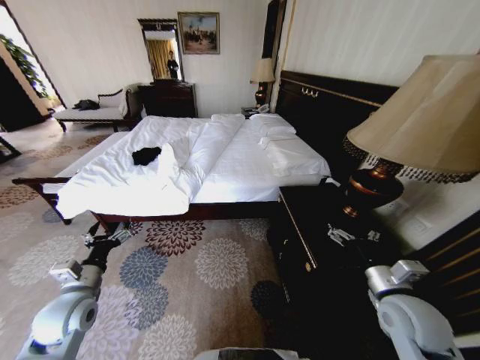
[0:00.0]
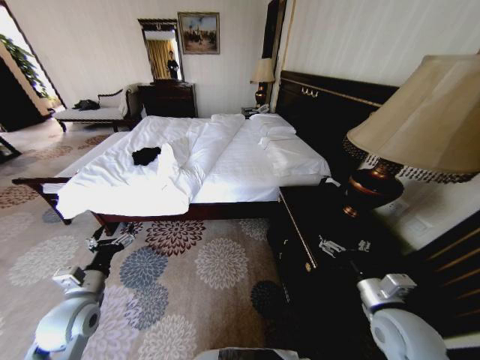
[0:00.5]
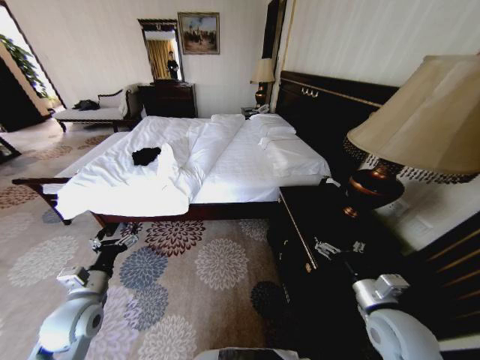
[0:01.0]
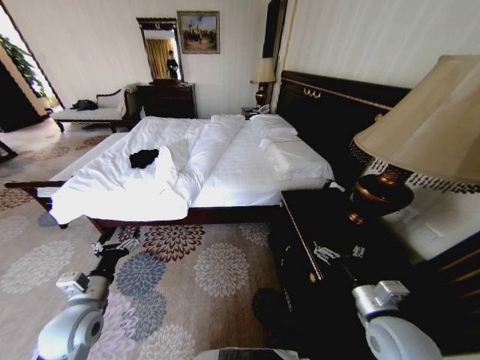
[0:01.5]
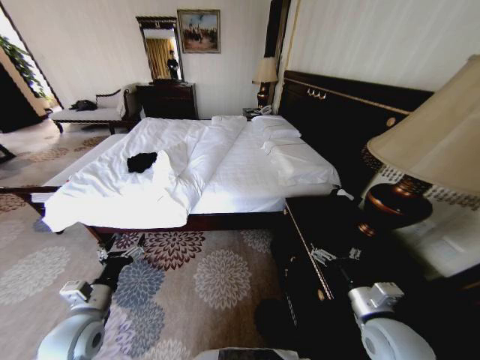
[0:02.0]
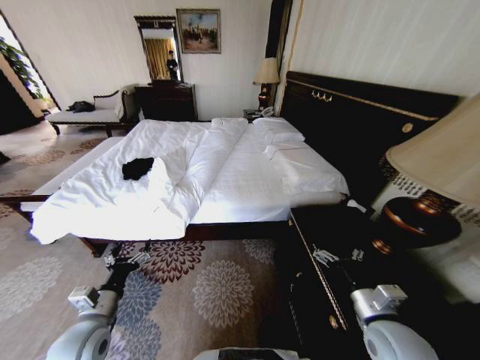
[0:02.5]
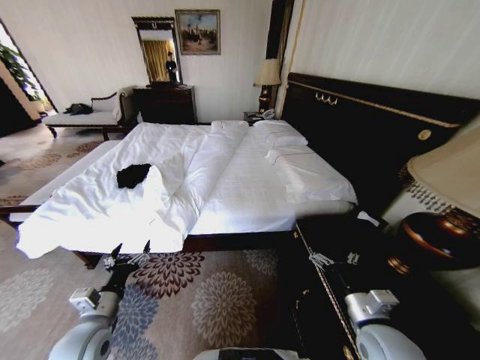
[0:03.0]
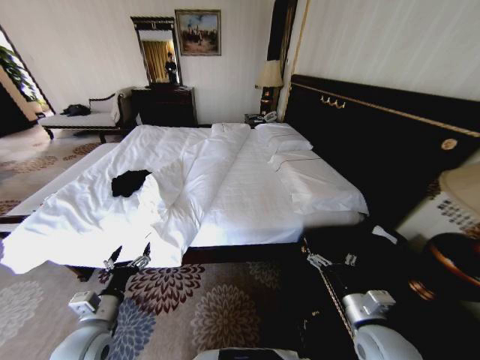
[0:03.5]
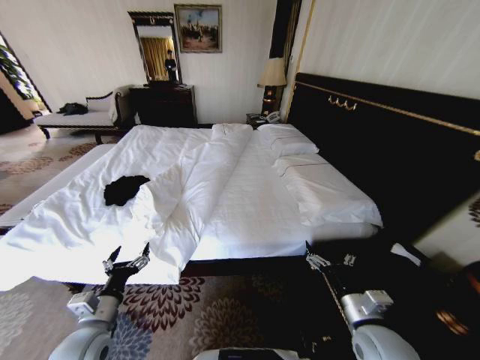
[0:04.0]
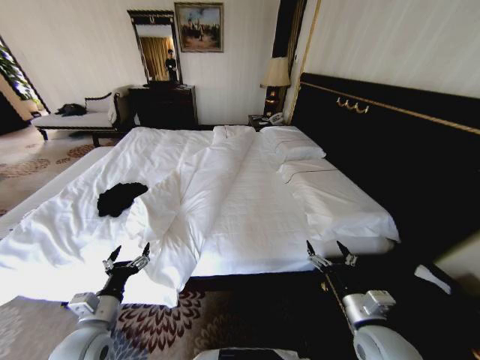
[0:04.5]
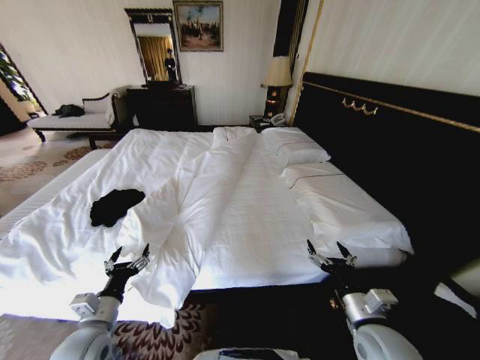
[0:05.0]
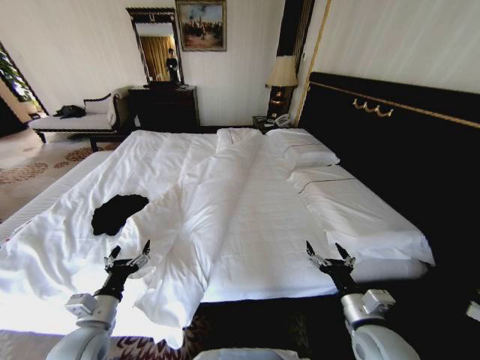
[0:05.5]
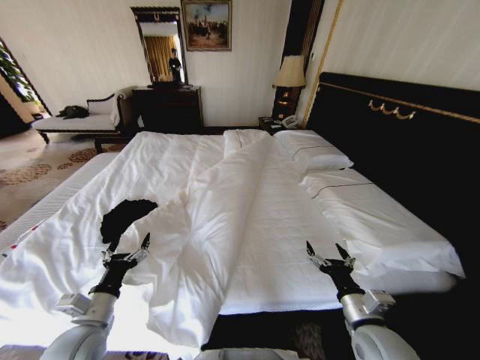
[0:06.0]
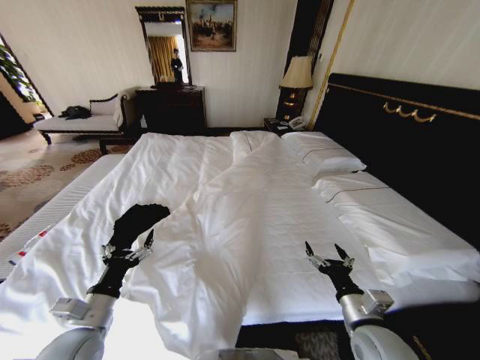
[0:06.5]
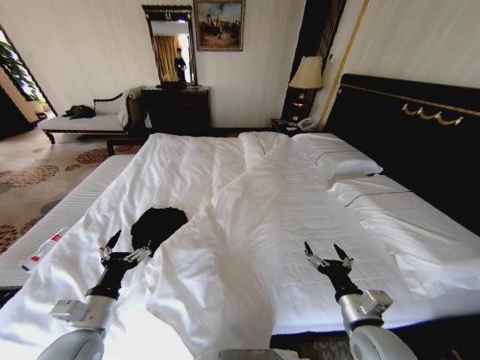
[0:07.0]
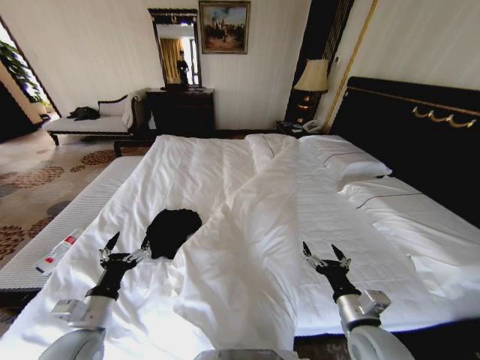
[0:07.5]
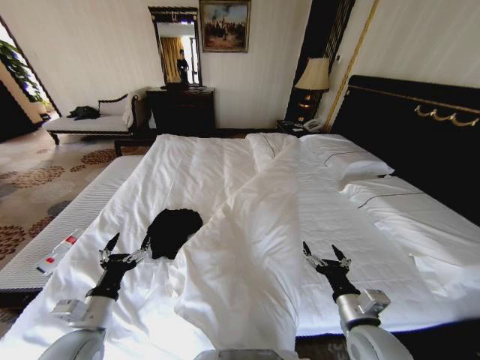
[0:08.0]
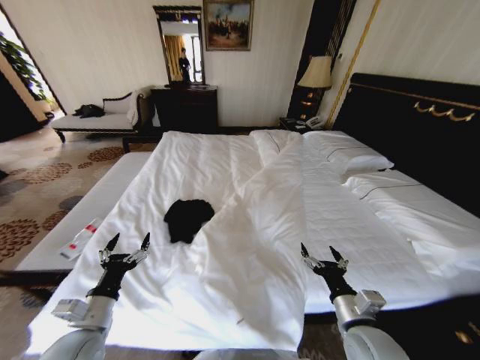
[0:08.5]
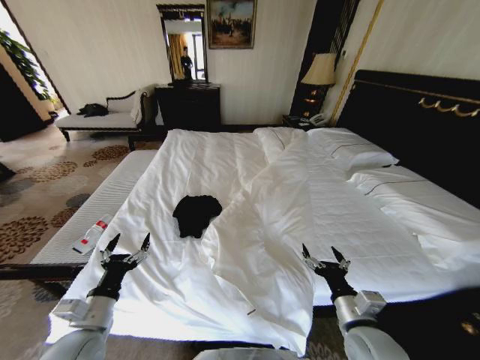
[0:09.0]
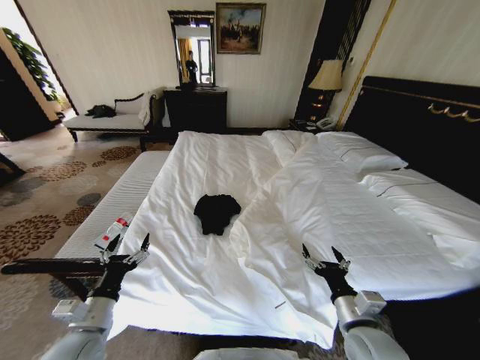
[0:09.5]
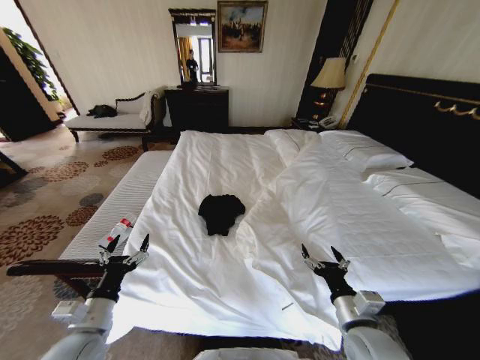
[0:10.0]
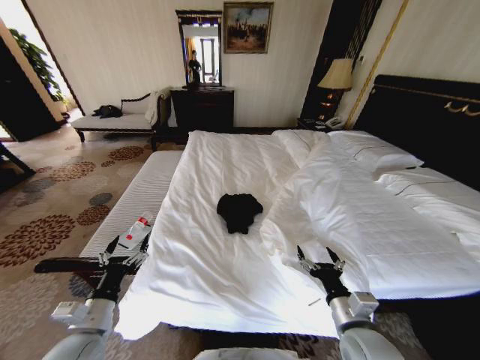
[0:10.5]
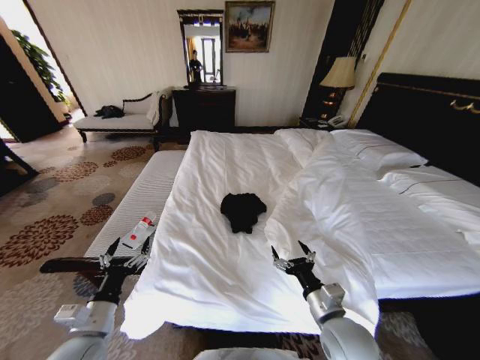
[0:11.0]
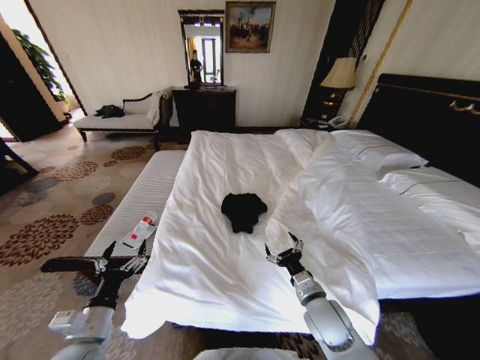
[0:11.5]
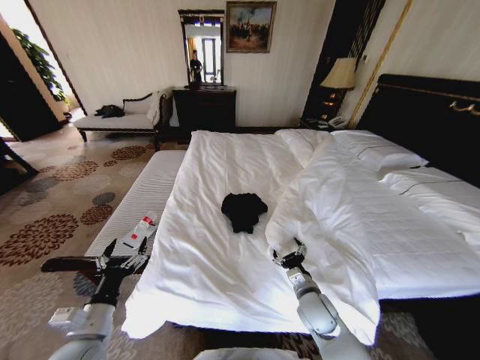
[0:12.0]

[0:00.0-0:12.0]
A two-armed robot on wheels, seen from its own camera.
Task of the whole recording: Fold the clothes on the bed.
0:10.0 to 0:12.0: The right gripper travels forward and downward by about 10 cm.

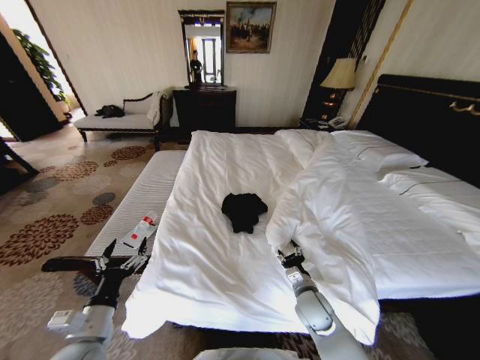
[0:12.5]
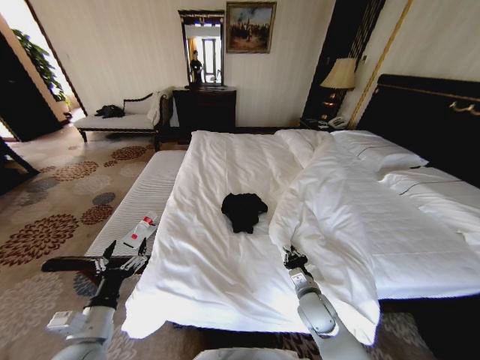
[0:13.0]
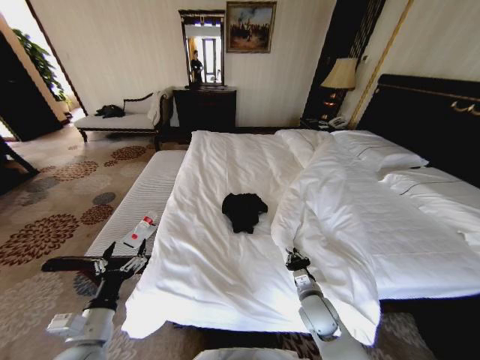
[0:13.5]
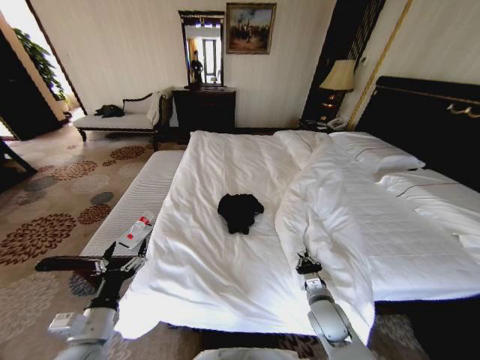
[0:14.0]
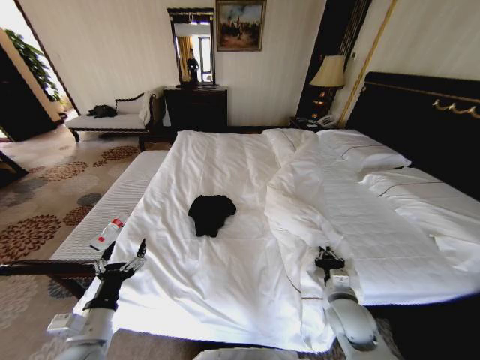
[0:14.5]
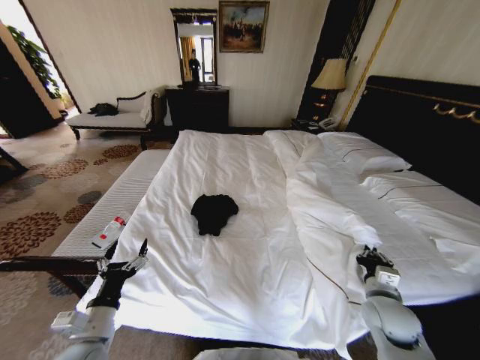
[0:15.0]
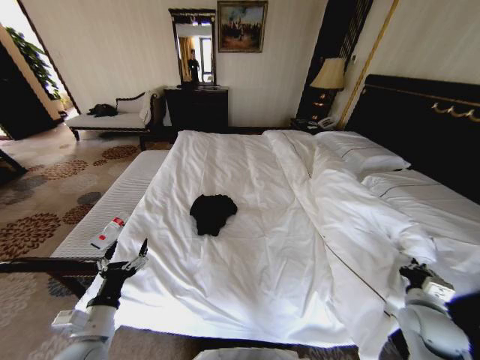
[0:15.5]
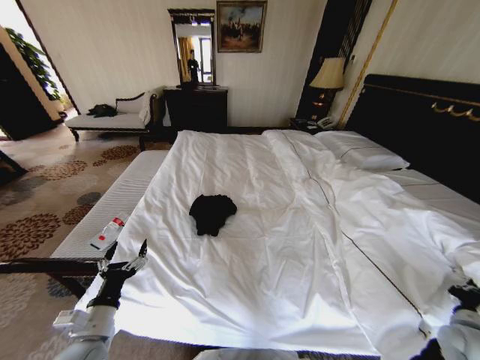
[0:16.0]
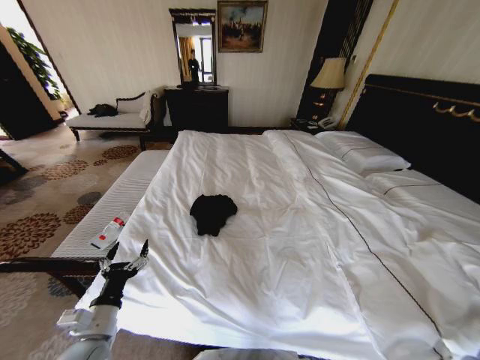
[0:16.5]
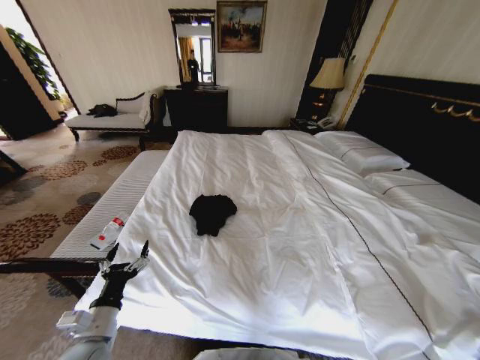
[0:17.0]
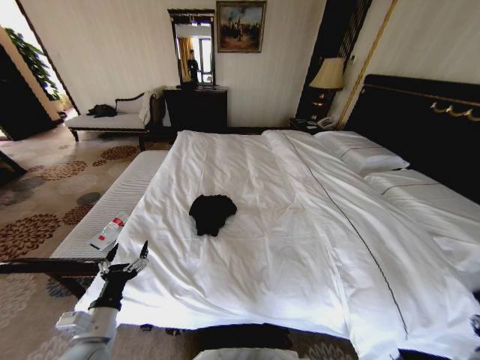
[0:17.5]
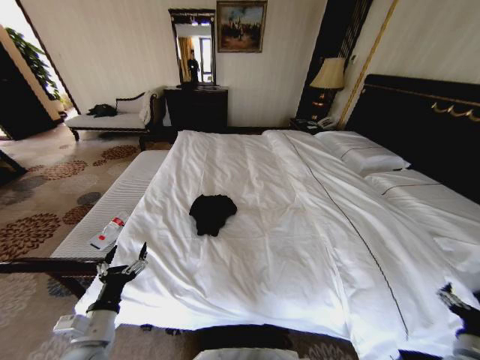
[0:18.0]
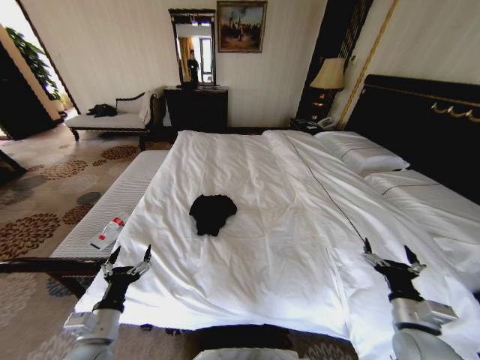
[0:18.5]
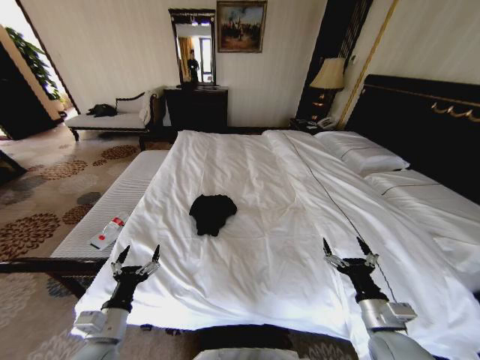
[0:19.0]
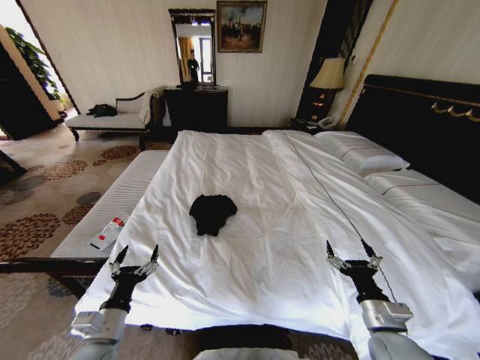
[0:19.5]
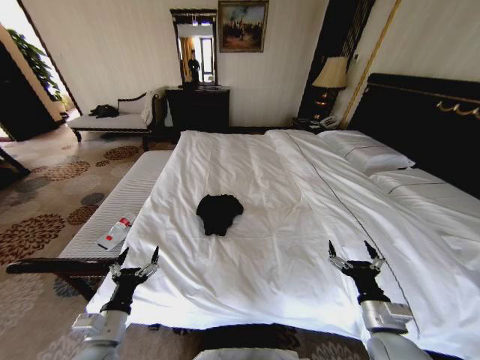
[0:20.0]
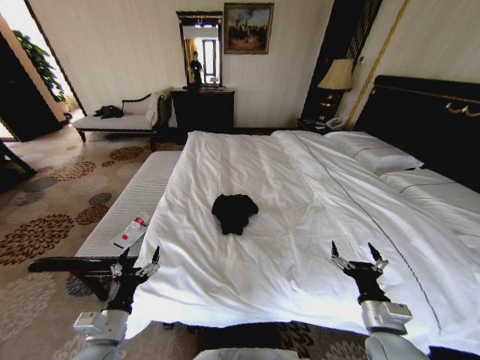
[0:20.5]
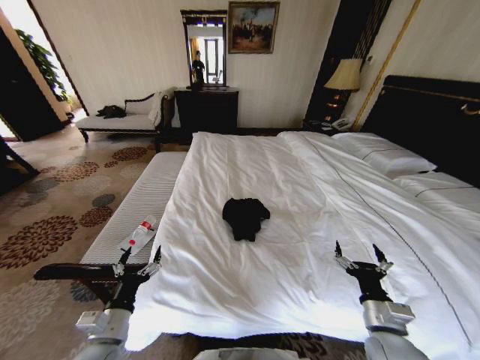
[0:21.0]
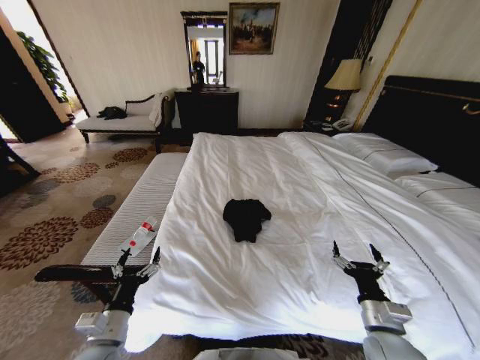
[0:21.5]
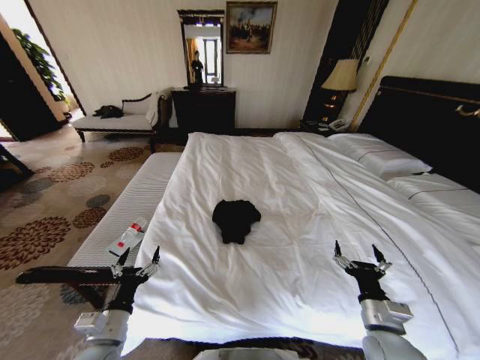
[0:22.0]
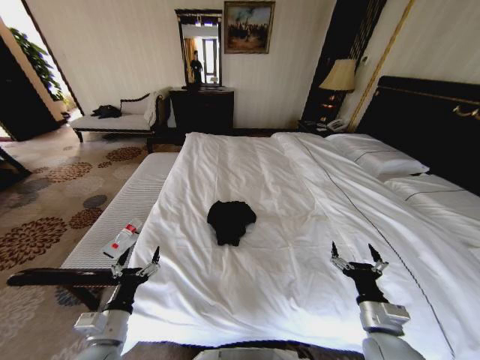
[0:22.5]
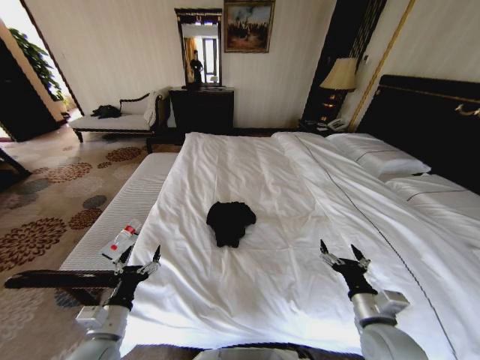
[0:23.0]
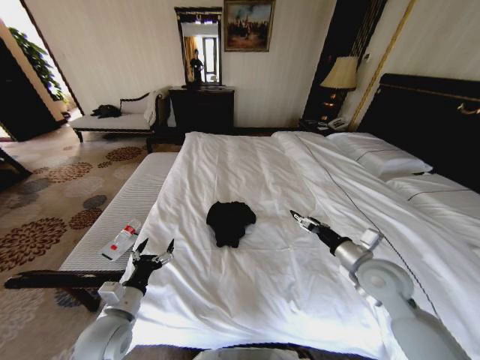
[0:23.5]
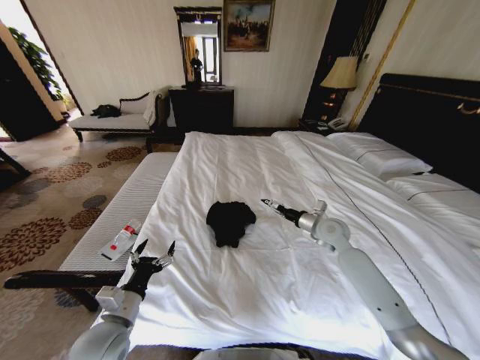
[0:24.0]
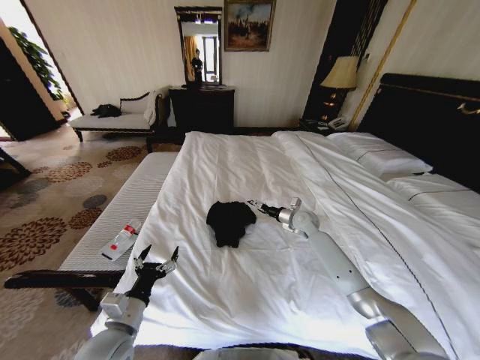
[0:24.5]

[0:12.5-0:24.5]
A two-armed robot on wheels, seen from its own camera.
Task of the whole recording: Fold the clothes on the bed.
0:12.5 to 0:14.5: The right gripper is displaced to the right by some 5 cm, and closes up.
0:14.5 to 0:16.5: The right gripper is displaced to the right and backward by approximately 30 cm.
0:16.5 to 0:18.5: The right gripper travels to the left by approximately 15 cm, and opens up.
0:18.5 to 0:20.5: The right gripper heads to the left, covering some 5 cm.
0:22.5 to 0:24.5: The right gripper shifts about 35 cm forward.

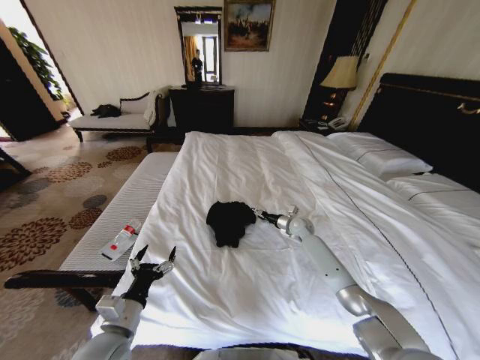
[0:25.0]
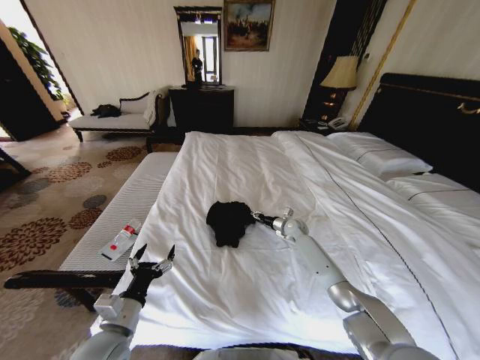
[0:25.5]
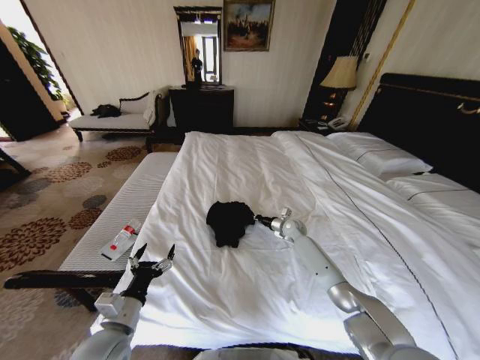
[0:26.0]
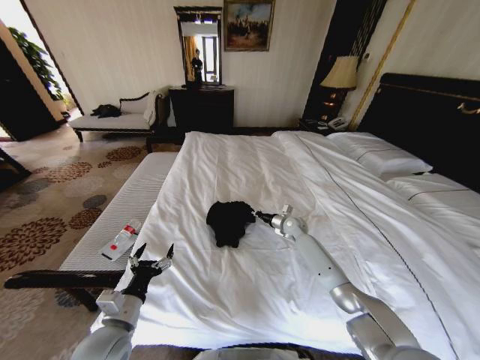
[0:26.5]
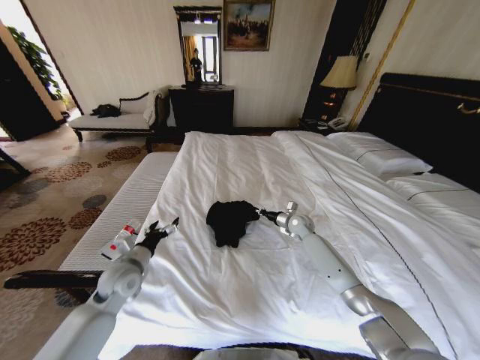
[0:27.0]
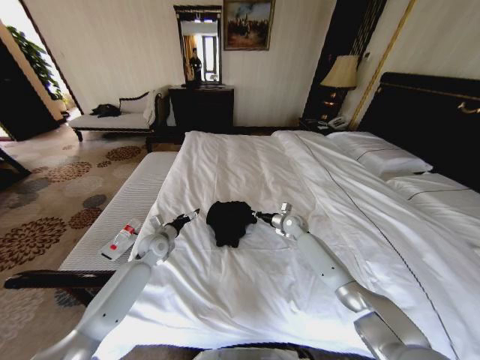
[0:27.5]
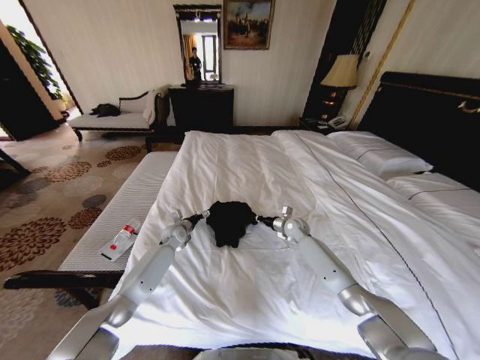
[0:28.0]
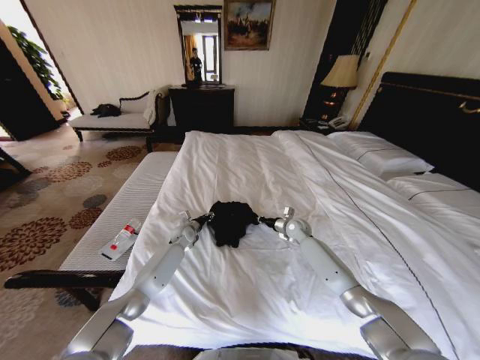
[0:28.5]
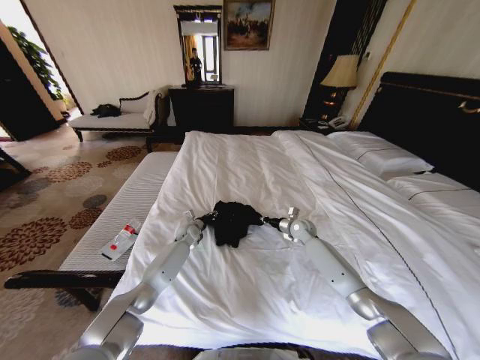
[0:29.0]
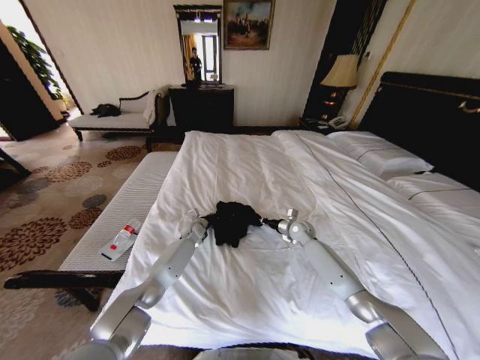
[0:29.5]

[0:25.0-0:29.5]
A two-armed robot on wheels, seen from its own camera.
Task of the whole recording: Fold the clothes on the bed.
0:25.0 to 0:27.0: The right gripper closes; the left gripper is displaced forward by some 15 cm.
0:27.0 to 0:29.5: The left gripper goes approximately 30 cm forward, to the right and downward, and closes its fingers.
